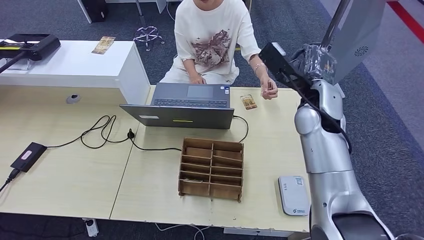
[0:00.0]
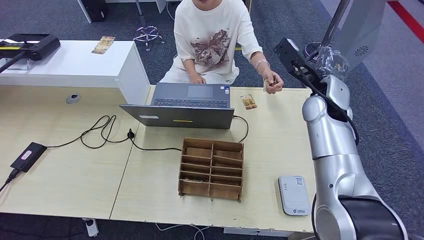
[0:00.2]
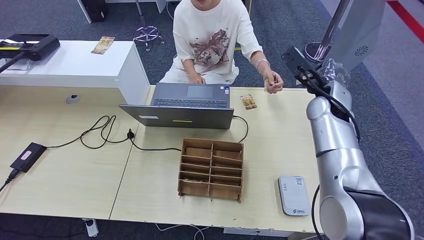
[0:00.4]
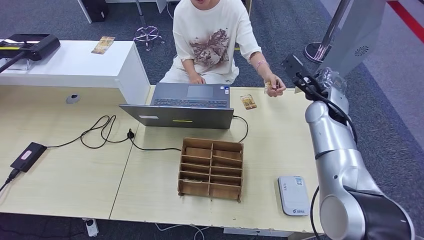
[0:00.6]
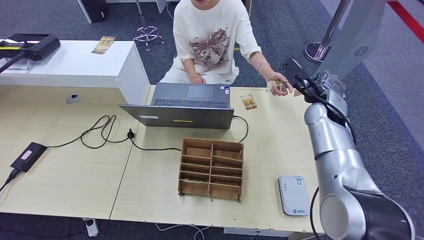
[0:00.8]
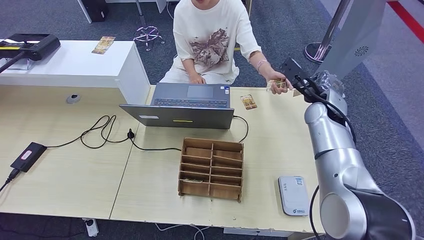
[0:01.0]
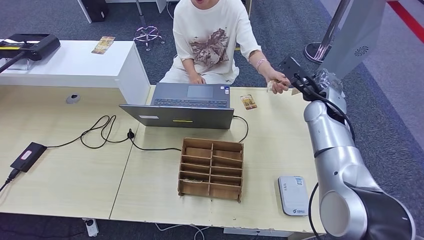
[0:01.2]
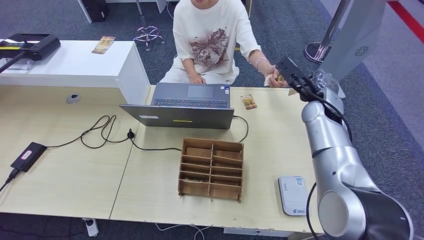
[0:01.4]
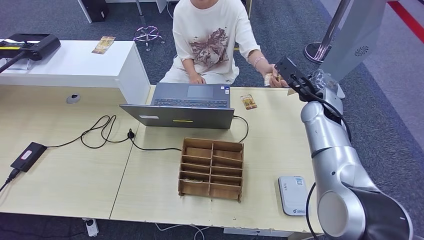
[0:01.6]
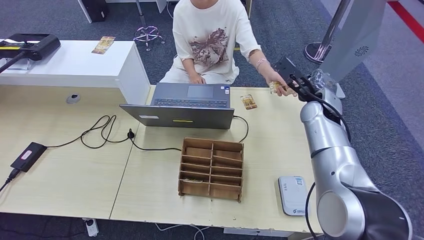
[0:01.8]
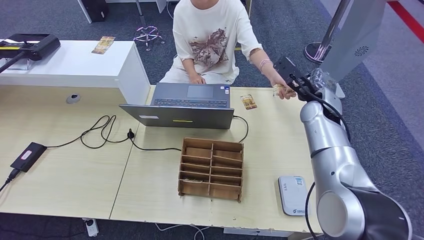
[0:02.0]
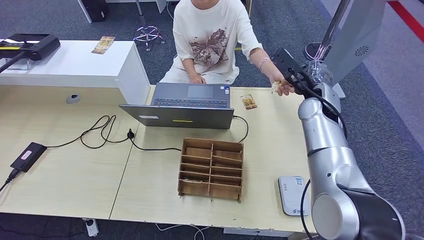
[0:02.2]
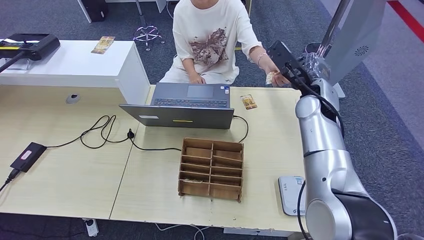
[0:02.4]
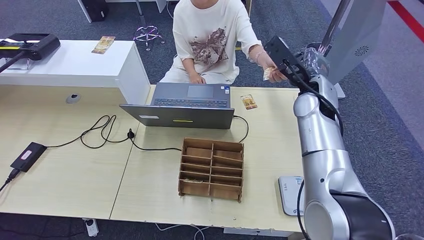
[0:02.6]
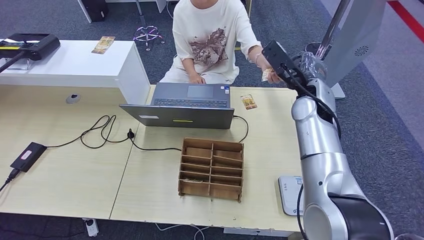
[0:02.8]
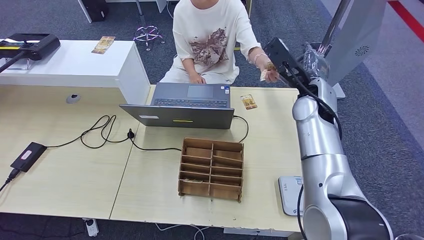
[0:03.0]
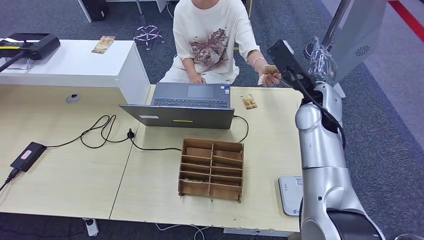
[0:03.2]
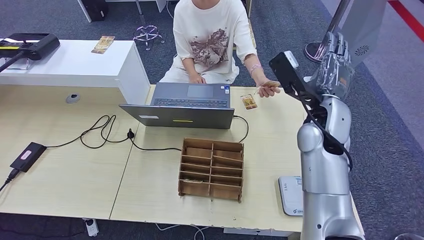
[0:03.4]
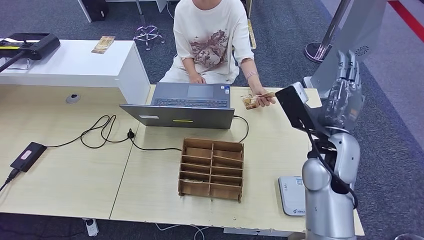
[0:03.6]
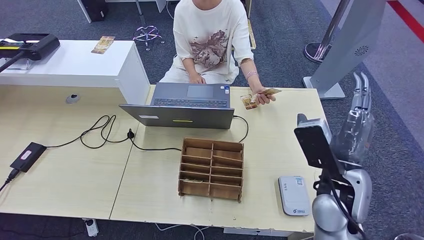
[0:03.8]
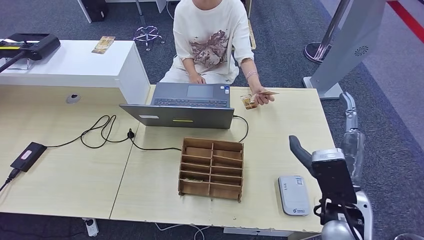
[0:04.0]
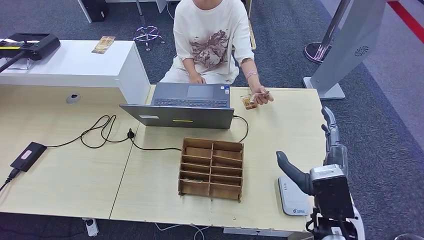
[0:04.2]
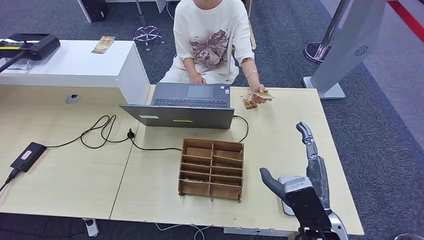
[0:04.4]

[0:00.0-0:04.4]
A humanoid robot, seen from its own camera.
Step, 0:00.0 to 0:04.4: Hand the room key to the person.
0:00.0 to 0:01.4: The right hand travels downward and forward by about 10 cm.
0:01.4 to 0:03.0: The right hand shifts by about 5 cm.
0:03.0 to 0:04.4: The right hand shifts roughly 25 cm backward.
